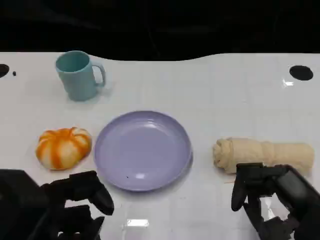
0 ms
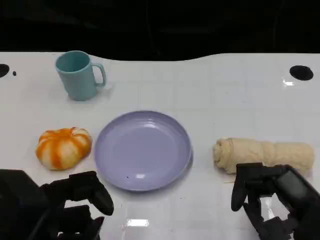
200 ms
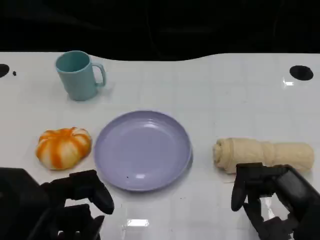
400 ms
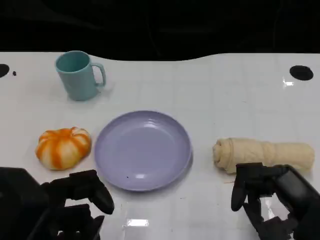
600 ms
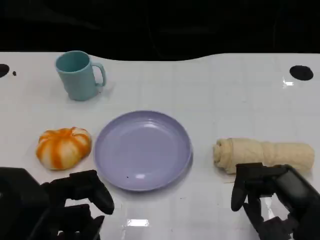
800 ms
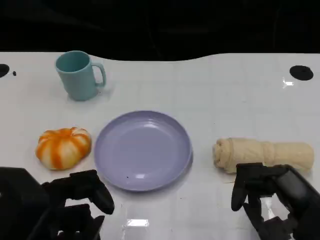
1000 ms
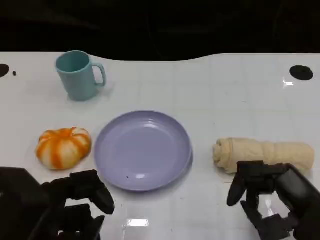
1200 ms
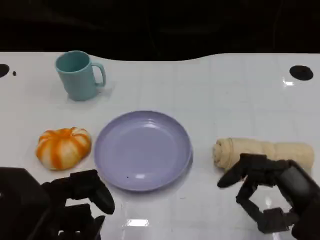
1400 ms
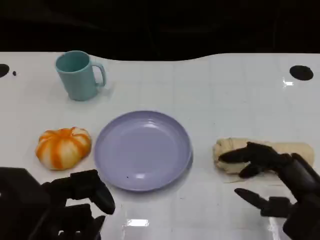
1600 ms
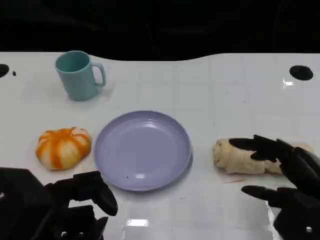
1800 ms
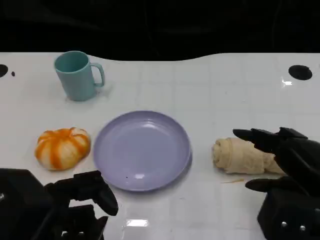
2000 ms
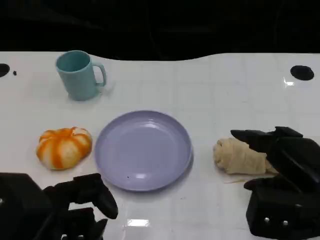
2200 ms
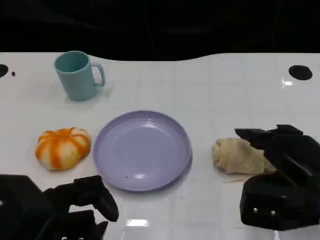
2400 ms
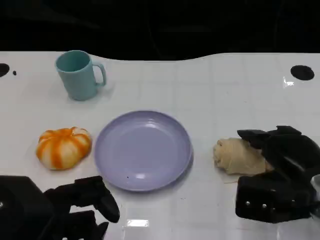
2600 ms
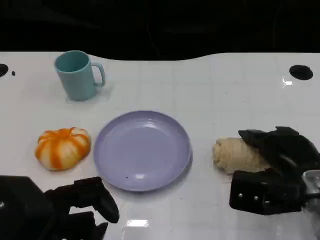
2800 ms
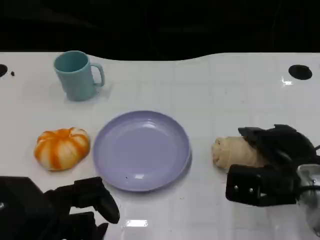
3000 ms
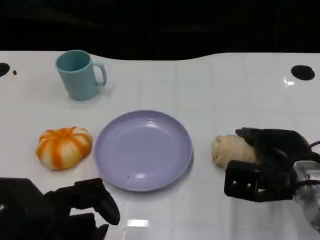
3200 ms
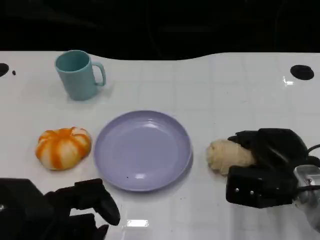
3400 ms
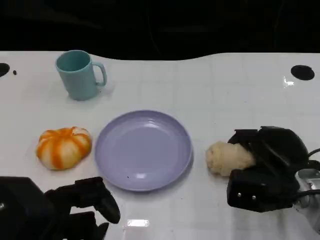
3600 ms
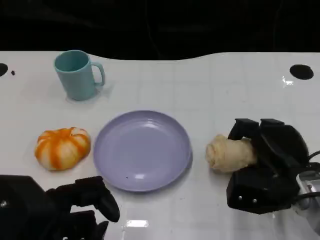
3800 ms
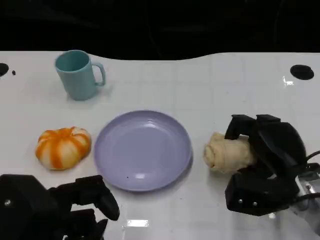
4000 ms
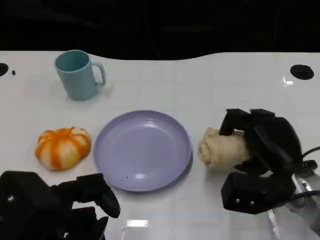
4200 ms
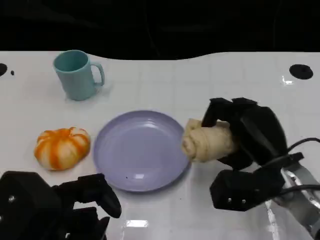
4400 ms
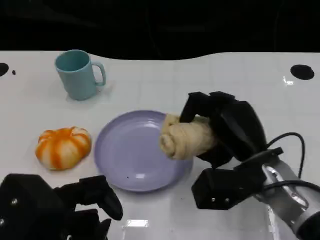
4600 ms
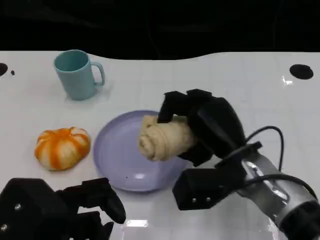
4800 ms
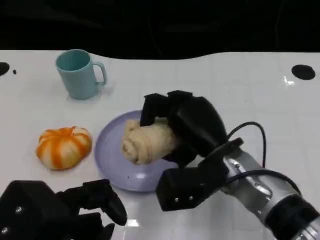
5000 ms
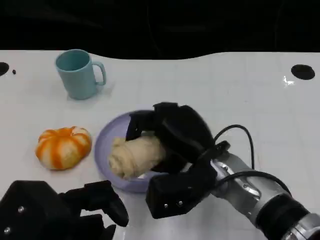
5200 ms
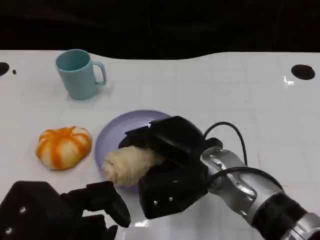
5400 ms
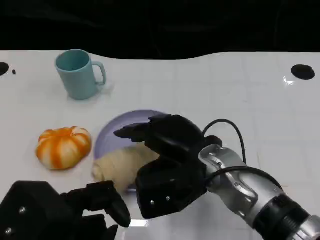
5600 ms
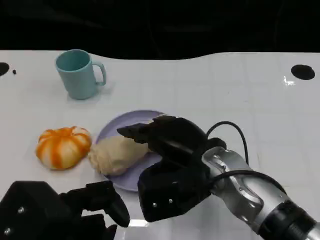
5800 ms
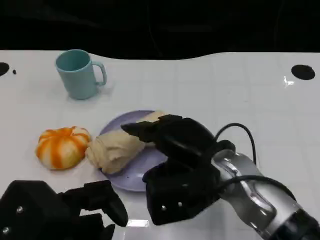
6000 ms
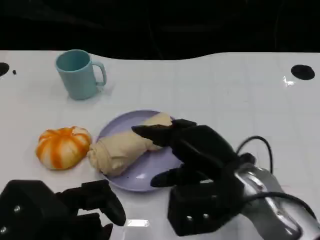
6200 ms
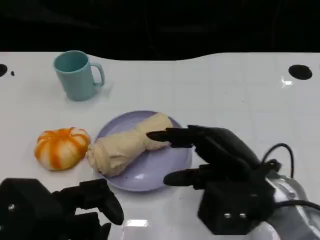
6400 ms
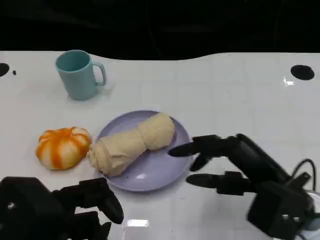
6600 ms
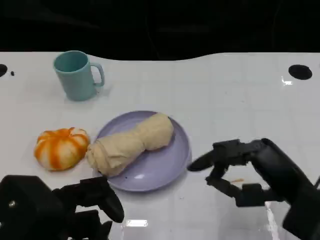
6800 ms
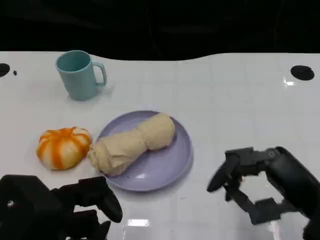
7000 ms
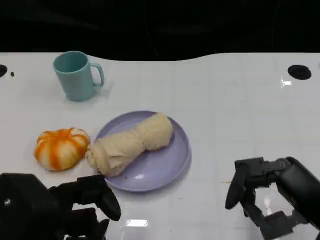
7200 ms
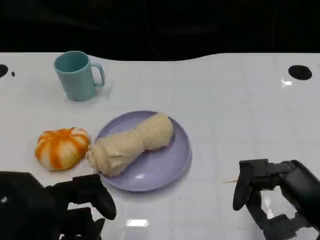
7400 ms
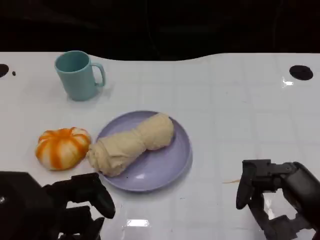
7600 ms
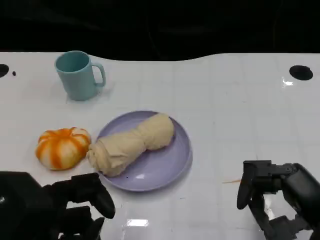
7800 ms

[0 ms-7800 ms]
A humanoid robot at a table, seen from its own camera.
Task of the whole recording: Grasp the towel on the left side of the plate with the left hand and place it into the plate.
0 ms to 1600 ms: The hands stay close to where they were, moving slightly.
1600 ms to 3200 ms: The right hand moves forward, some 10 cm.
3200 ms to 4600 ms: The right hand goes some 5 cm to the left.
6200 ms to 7800 ms: The right hand goes some 15 cm to the right and backward.

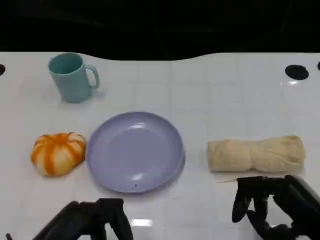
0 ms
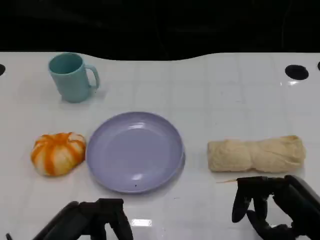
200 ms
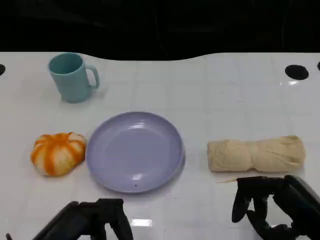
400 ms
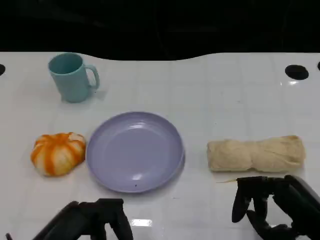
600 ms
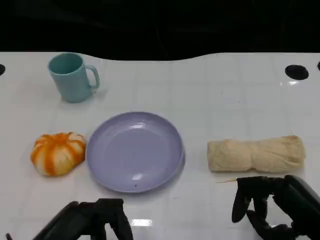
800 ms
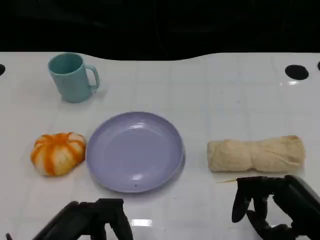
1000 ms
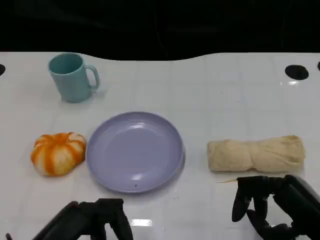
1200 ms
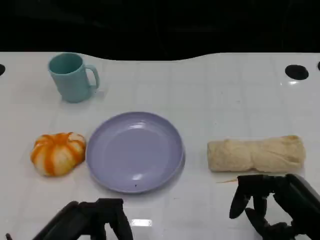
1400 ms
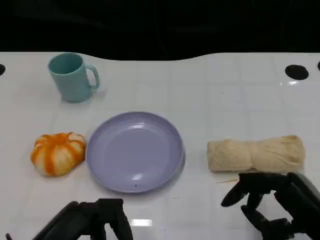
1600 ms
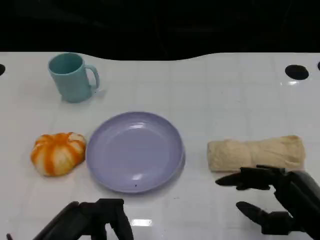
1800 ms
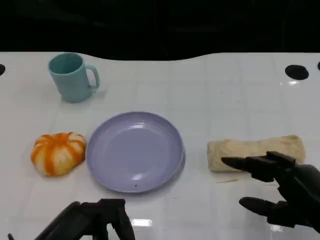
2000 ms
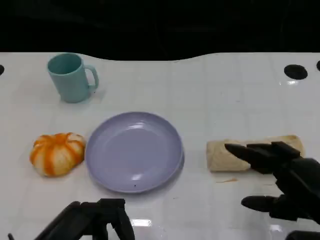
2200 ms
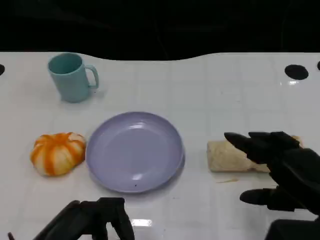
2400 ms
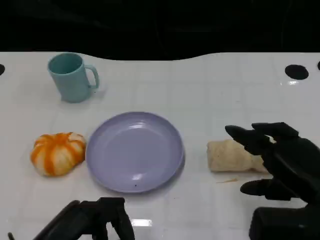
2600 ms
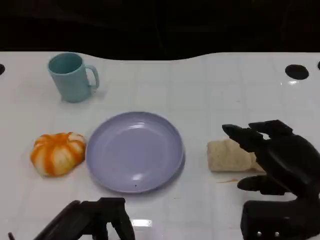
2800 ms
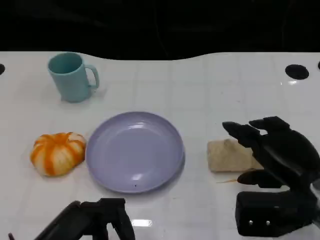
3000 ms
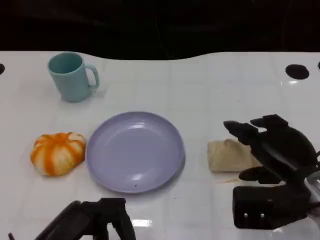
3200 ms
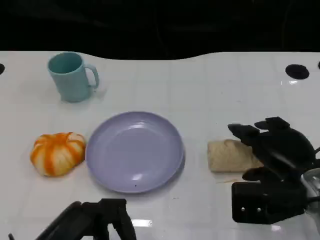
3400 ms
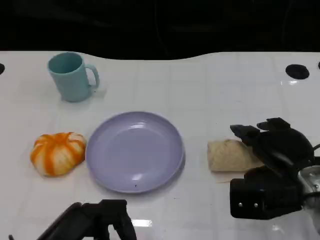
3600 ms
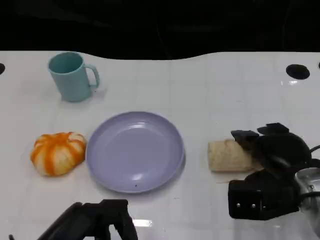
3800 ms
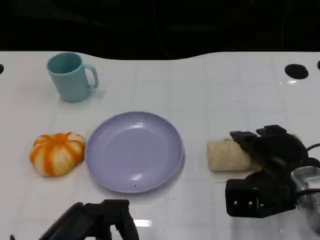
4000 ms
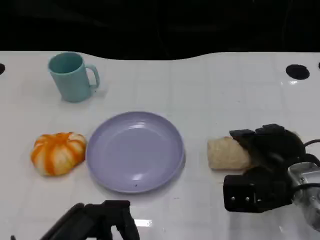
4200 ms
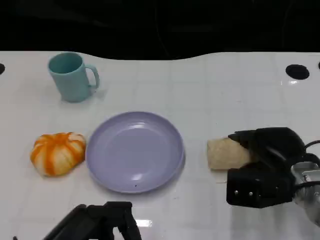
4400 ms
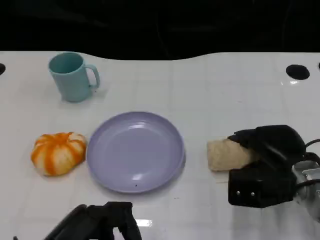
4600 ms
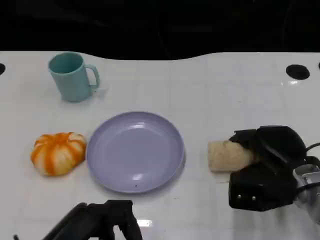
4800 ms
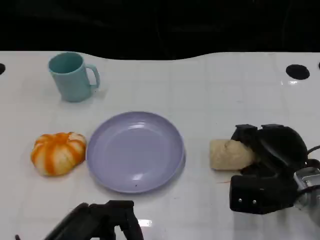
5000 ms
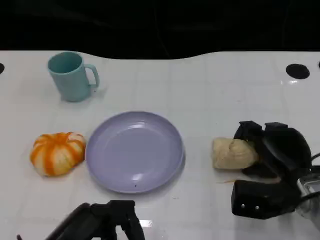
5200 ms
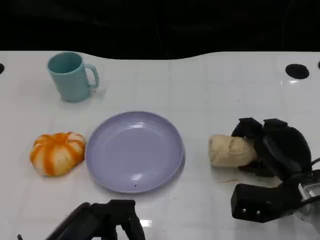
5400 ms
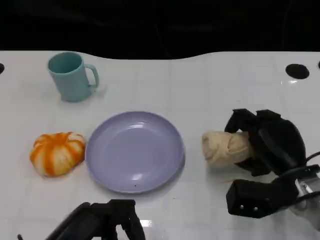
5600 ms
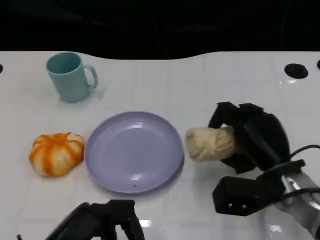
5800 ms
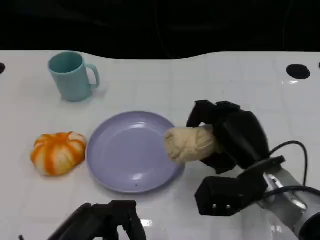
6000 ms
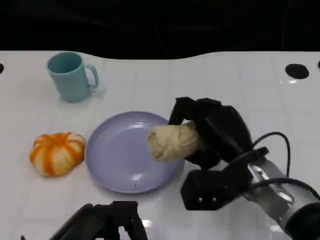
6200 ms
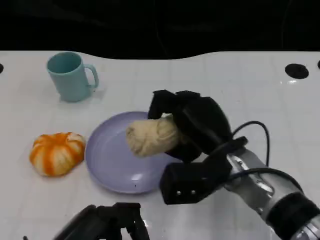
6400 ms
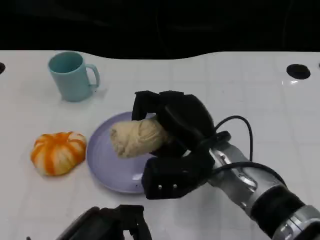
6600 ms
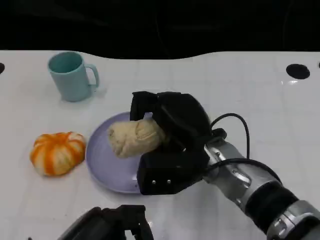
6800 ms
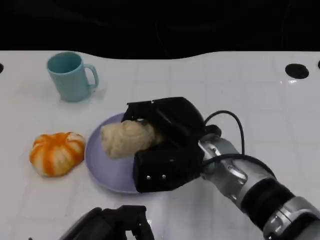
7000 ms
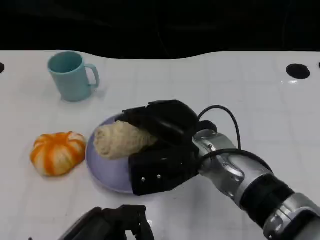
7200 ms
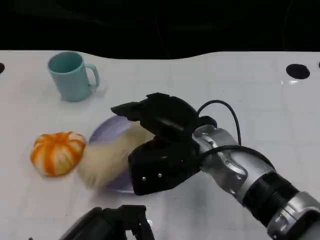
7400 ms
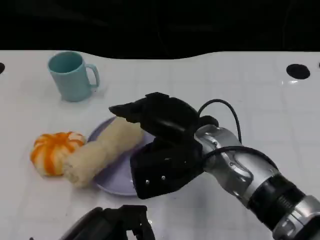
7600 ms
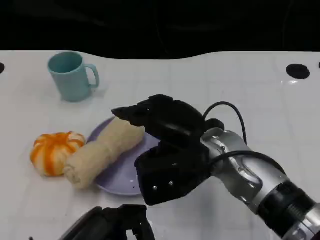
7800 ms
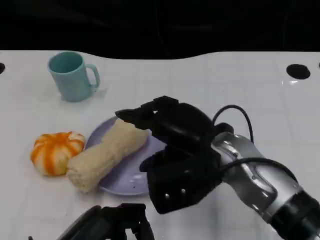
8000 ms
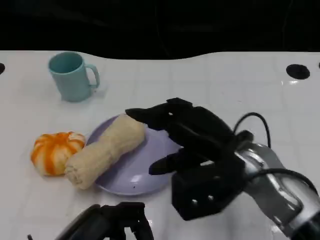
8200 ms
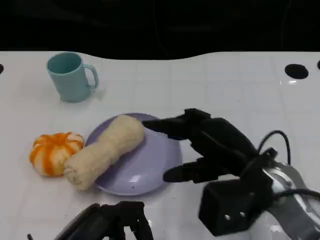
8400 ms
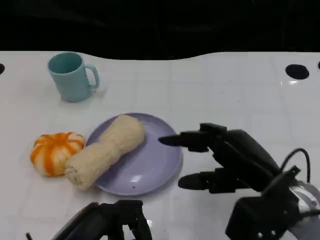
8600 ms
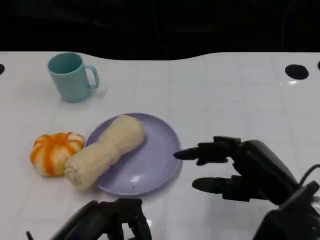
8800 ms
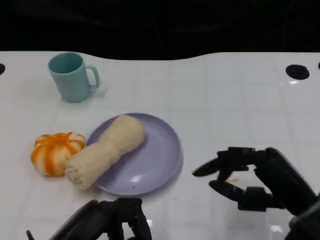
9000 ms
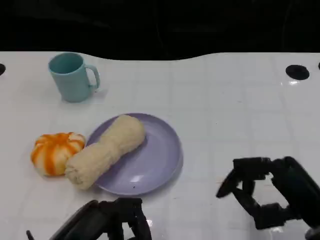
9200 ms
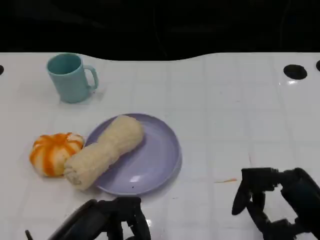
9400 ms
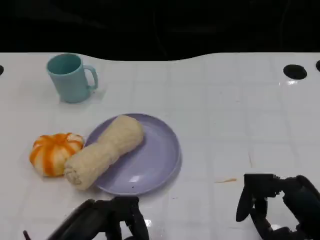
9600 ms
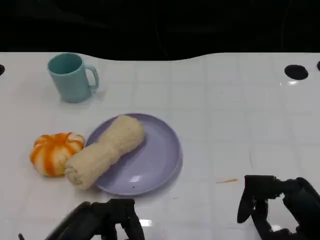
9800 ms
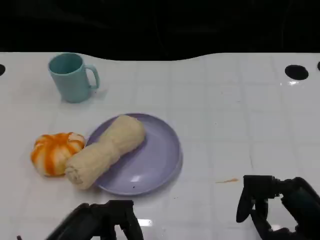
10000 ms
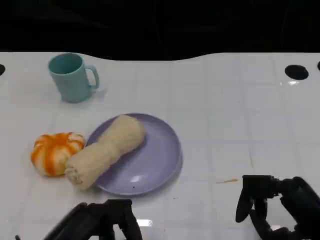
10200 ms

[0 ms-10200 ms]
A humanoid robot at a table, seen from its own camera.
Task of the whole recording: Grasp the towel on the left side of the plate with the left hand and place it into the plate.
0 ms to 1400 ms: Neither hand changes place.
1400 ms to 3000 ms: The right hand is displaced forward by some 5 cm.
3000 ms to 4400 ms: The right hand changes place by about 5 cm.
5800 ms to 7200 ms: The right hand is displaced to the left and upward by some 15 cm.
7200 ms to 8800 ms: The right hand goes about 15 cm to the right and backward.
8800 ms to 10200 ms: The right hand changes place by approximately 5 cm.

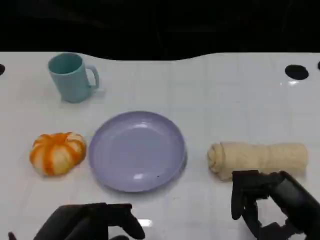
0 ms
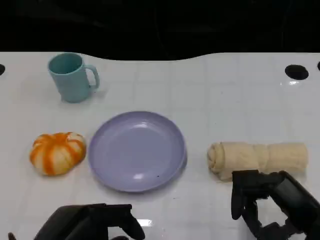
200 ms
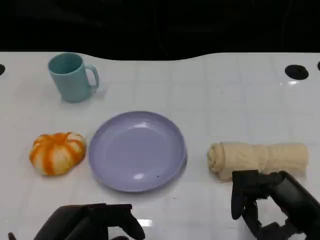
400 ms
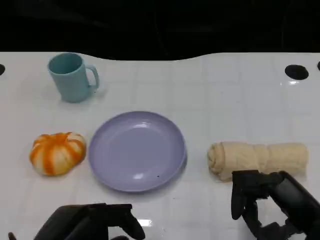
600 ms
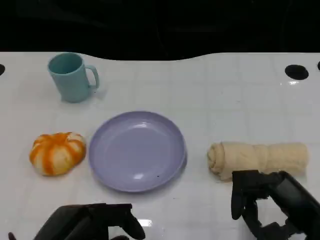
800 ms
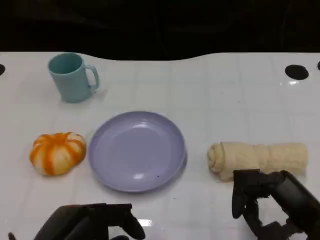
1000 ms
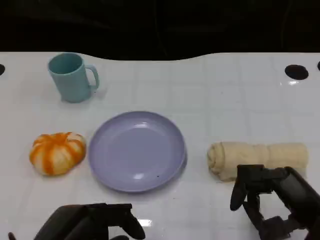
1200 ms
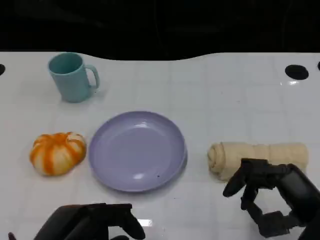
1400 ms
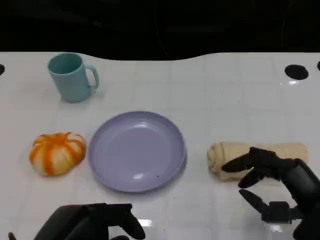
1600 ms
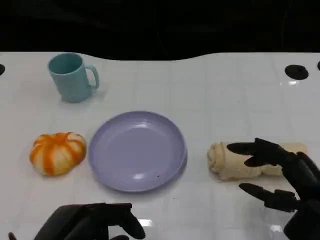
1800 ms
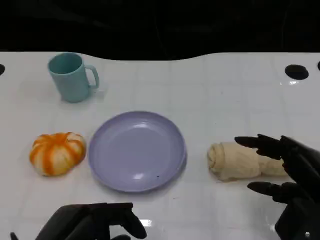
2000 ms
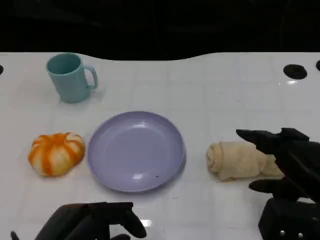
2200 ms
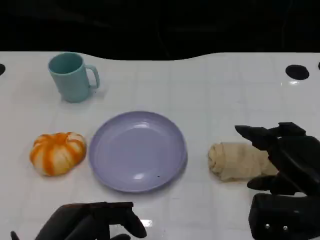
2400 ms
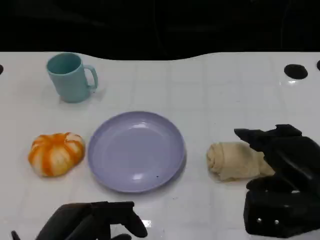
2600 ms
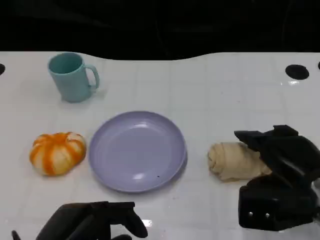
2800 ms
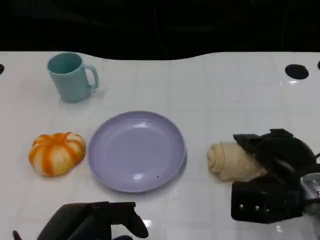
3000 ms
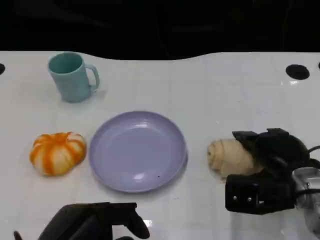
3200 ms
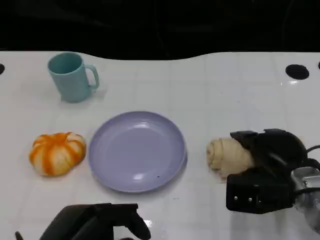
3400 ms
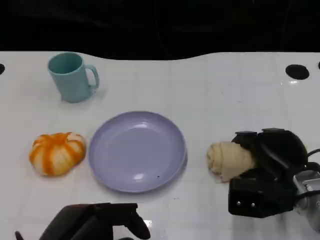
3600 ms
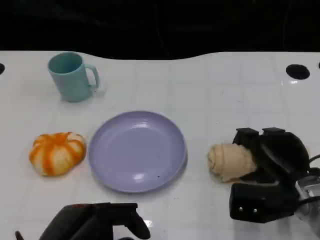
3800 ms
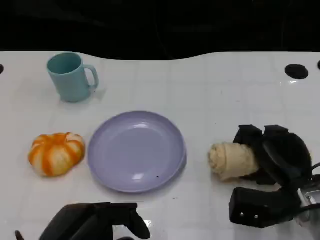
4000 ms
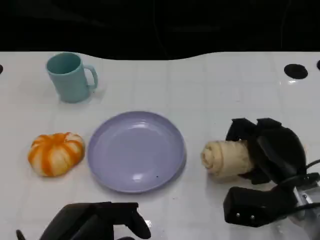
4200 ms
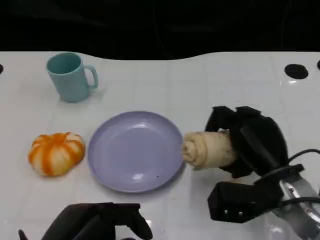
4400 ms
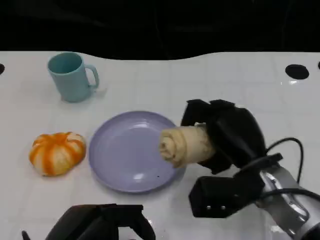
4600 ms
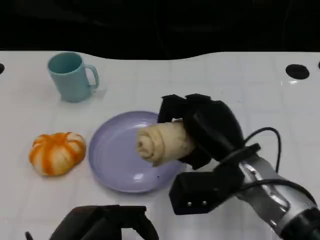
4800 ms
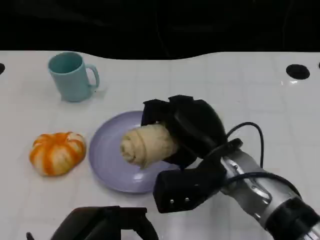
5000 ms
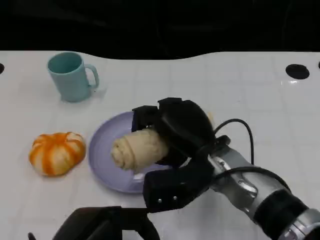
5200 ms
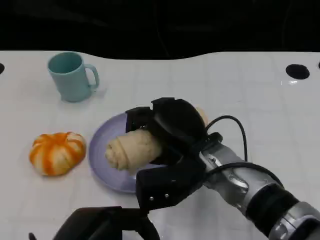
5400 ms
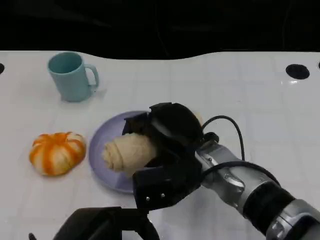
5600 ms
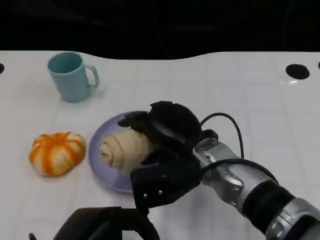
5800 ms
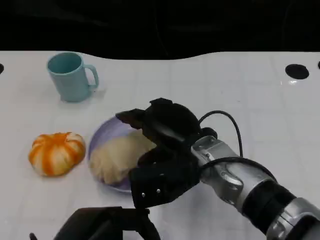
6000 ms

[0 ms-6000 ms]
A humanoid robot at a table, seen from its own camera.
Task of the whole recording: Grasp the towel on the left side of the plate with the left hand and place it into the plate.
0 ms to 1600 ms: There are only small adjustments of the hands.
1600 ms to 3000 ms: The right hand travels forward by roughly 10 cm.
4400 ms to 6000 ms: The right hand shifts approximately 10 cm to the left.
